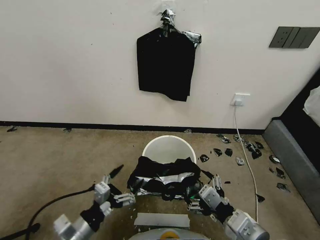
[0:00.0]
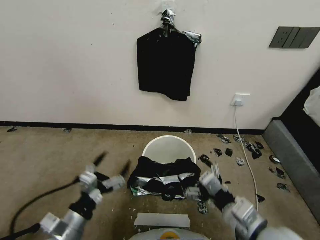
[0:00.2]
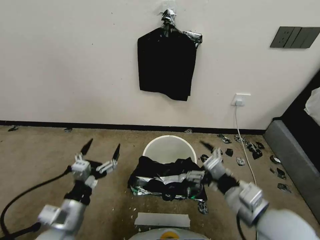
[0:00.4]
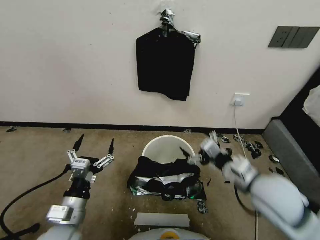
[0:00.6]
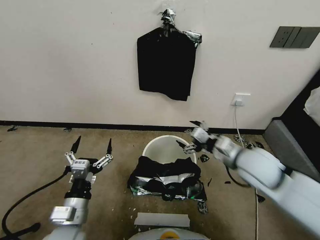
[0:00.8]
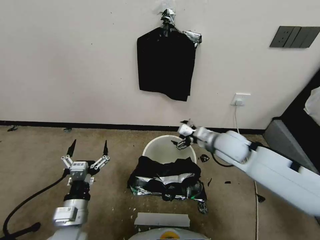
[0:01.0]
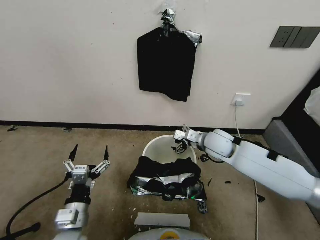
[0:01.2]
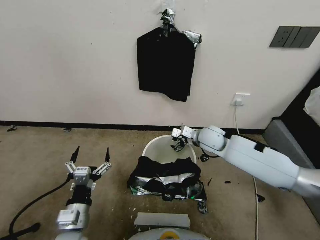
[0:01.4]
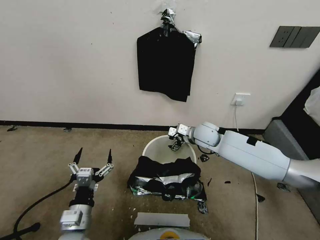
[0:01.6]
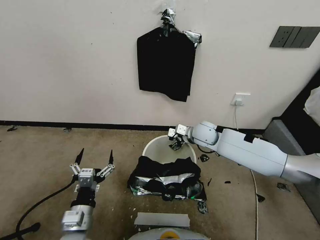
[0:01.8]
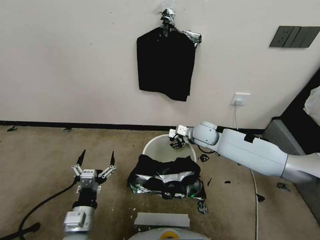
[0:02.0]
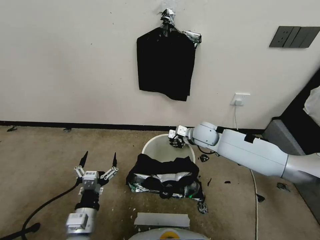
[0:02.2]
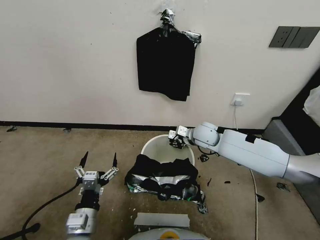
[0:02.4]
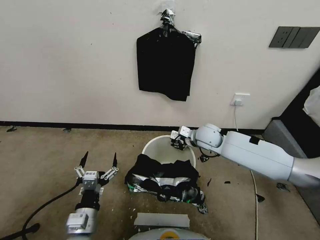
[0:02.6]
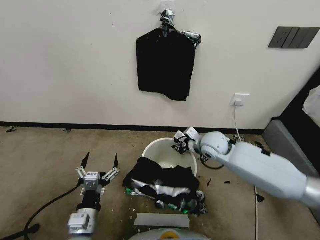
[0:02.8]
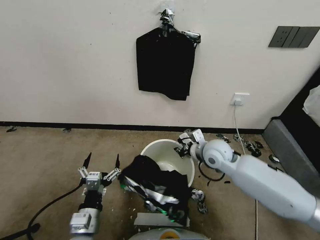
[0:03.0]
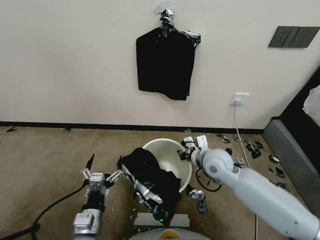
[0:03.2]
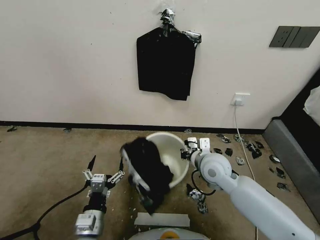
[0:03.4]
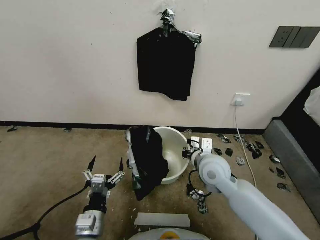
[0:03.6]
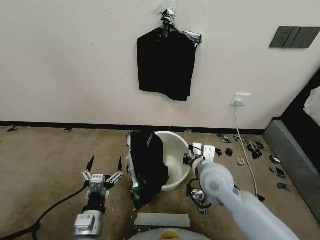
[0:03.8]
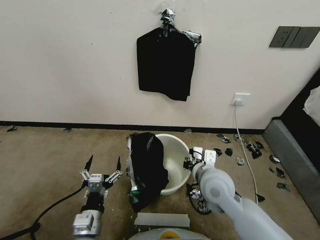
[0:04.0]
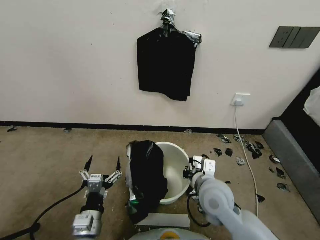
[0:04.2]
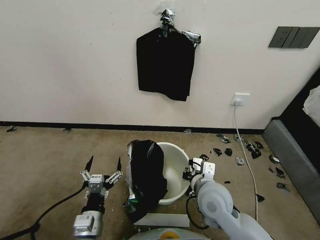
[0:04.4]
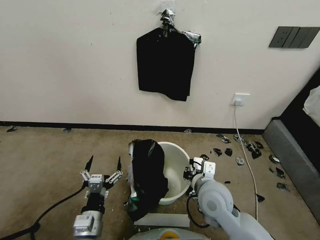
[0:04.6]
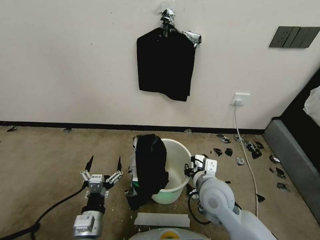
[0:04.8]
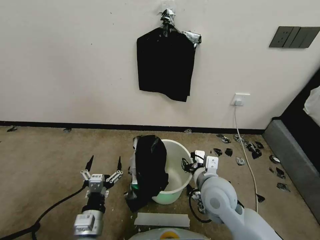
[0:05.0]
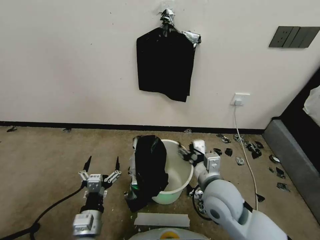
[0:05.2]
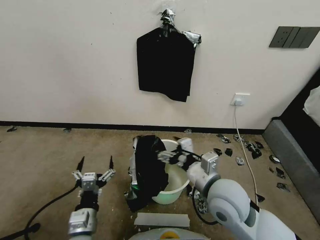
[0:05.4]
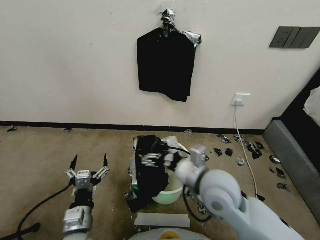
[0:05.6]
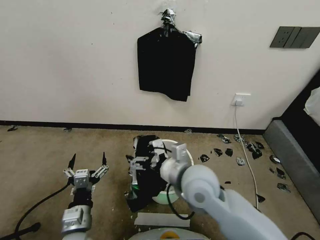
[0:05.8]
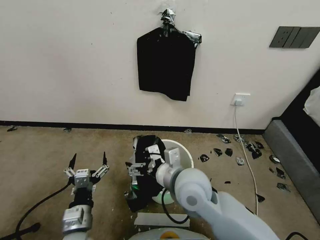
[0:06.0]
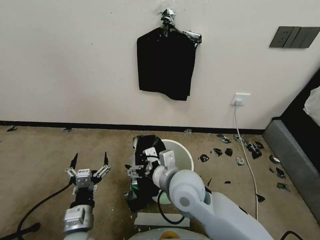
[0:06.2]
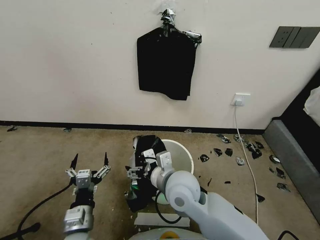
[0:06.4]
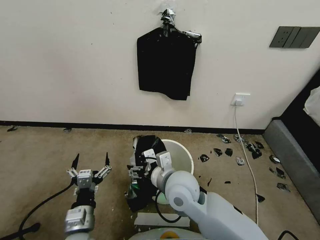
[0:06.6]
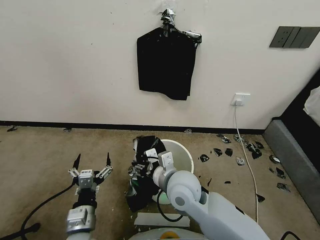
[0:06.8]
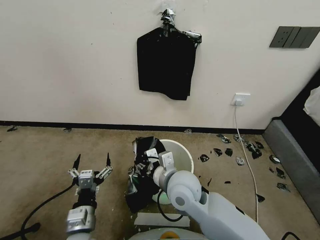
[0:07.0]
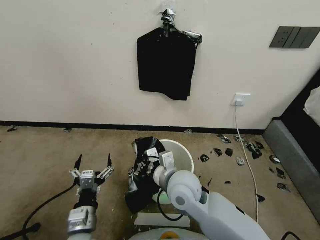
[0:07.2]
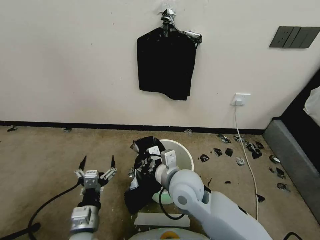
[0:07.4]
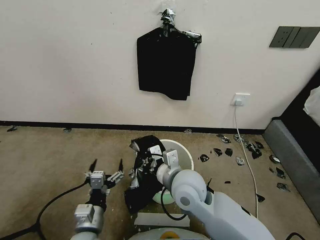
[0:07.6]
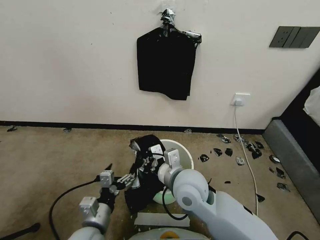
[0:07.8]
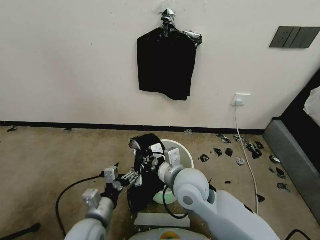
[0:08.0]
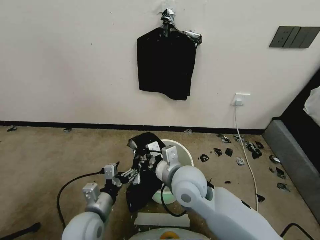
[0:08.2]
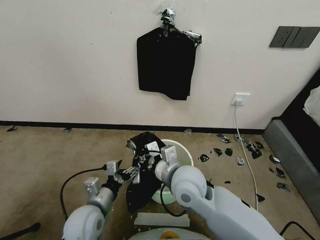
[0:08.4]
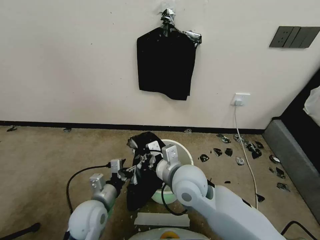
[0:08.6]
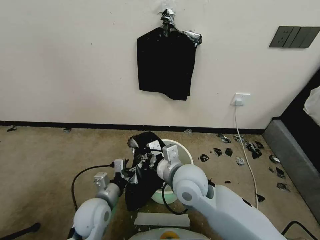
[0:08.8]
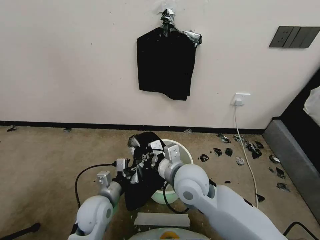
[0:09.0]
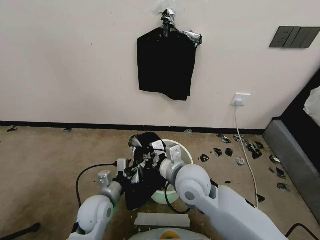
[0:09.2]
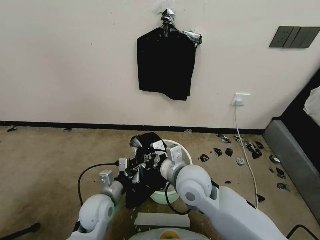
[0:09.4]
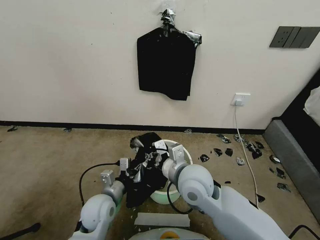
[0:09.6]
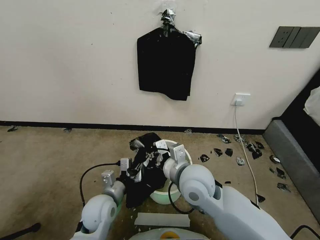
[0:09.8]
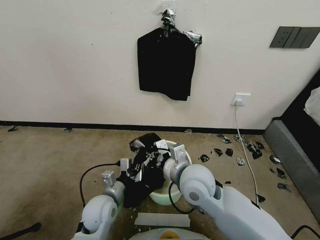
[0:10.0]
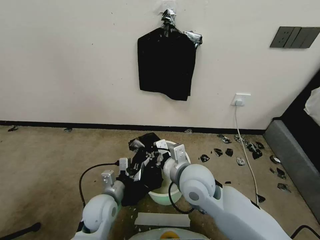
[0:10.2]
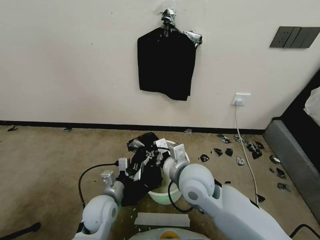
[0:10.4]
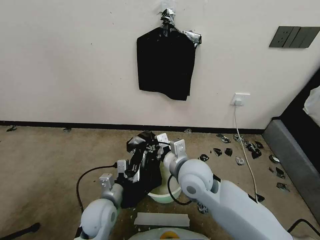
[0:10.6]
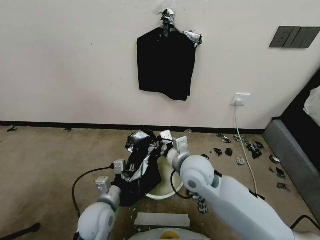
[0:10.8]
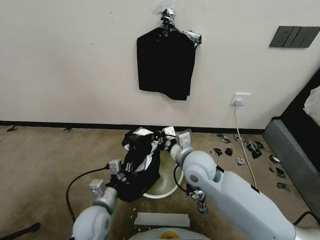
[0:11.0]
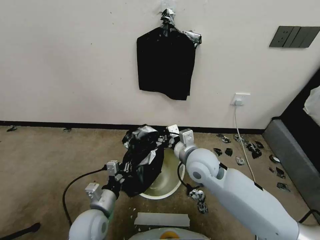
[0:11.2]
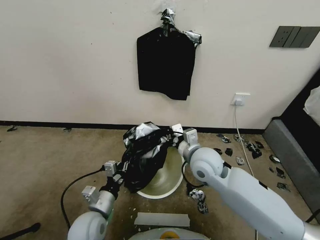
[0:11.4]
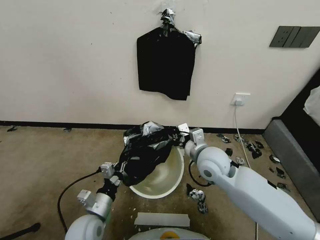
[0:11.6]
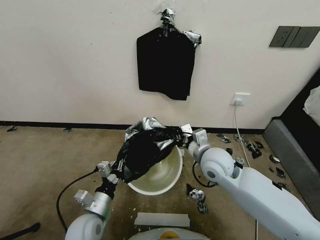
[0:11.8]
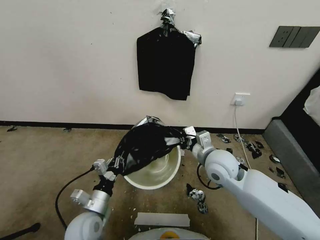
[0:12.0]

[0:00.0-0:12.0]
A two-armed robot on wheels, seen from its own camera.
Task of the whole recording: Place a trash bag onto the trash bin.
0:00.0 to 0:01.6: The right gripper is displaced forward by some 35 cm.
0:01.6 to 0:03.0: The right gripper goes some 10 cm backward, and closes its fingers.
0:03.0 to 0:04.4: The right gripper is displaced backward by some 15 cm.
0:04.4 to 0:06.0: The right gripper travels to the left and upward by some 10 cm, and opens.
0:06.0 to 0:07.6: The right gripper closes.
0:07.6 to 0:09.0: The left gripper heads forward, covering about 10 cm.
0:09.0 to 0:10.4: The left gripper closes its fingers.
0:10.4 to 0:12.0: The left gripper ends up approximately 5 cm from where it was, while the right gripper moves to the right and forward, about 10 cm.

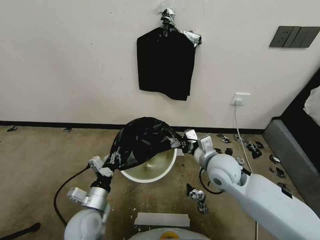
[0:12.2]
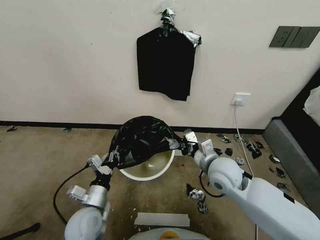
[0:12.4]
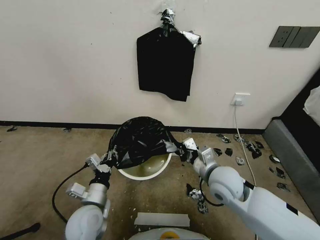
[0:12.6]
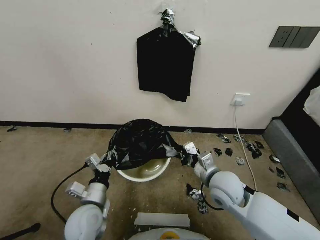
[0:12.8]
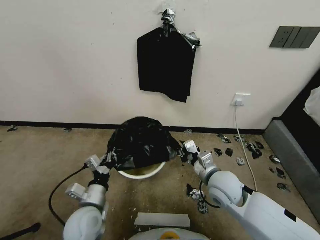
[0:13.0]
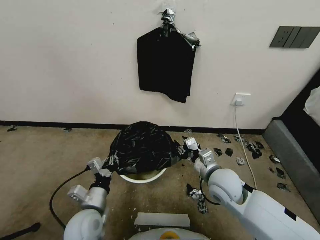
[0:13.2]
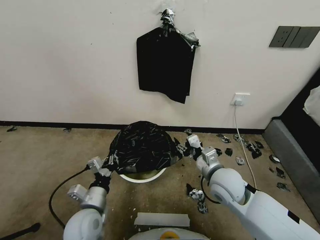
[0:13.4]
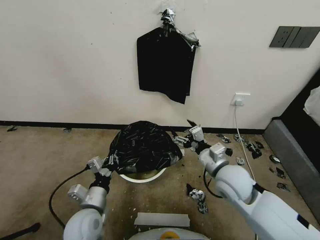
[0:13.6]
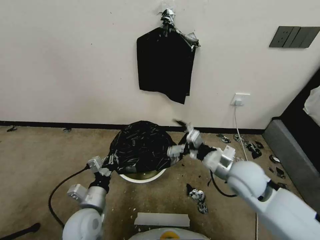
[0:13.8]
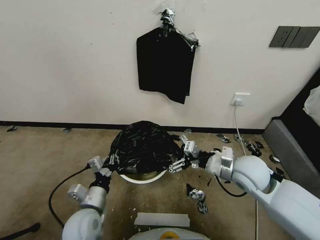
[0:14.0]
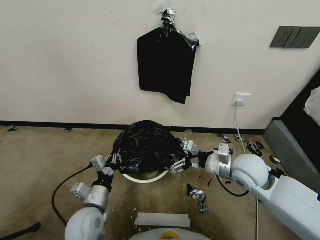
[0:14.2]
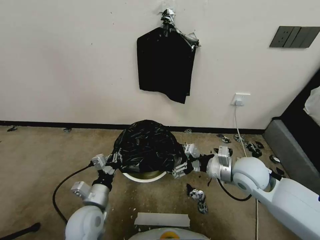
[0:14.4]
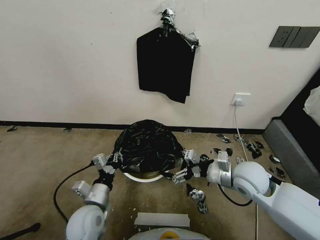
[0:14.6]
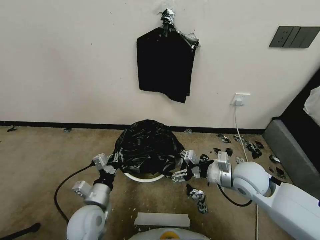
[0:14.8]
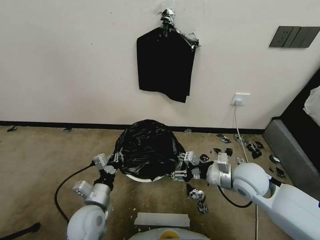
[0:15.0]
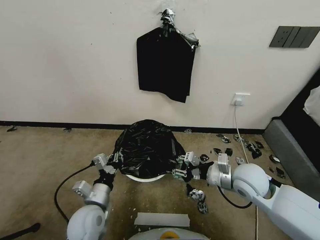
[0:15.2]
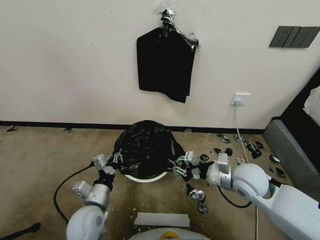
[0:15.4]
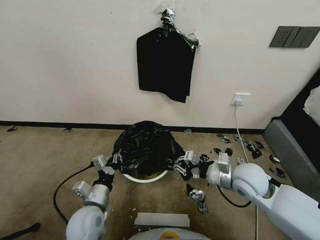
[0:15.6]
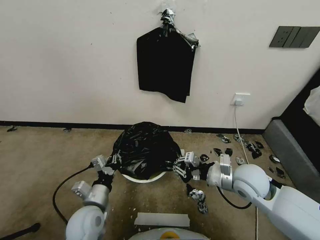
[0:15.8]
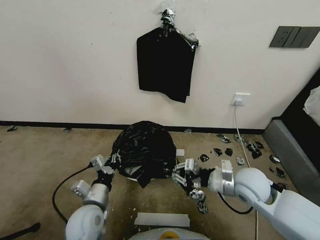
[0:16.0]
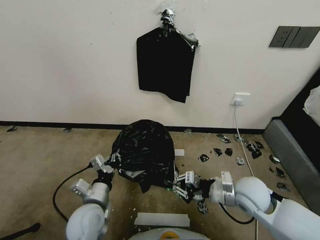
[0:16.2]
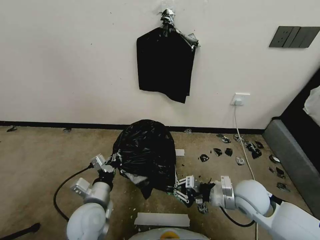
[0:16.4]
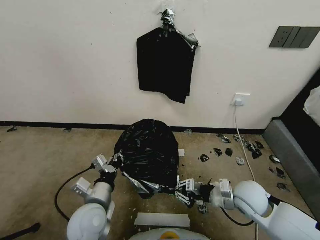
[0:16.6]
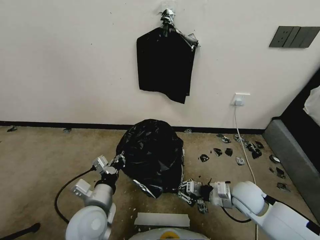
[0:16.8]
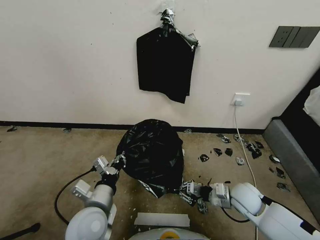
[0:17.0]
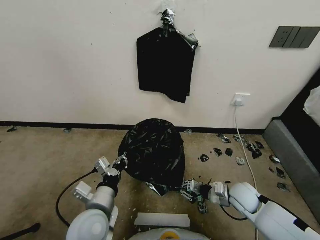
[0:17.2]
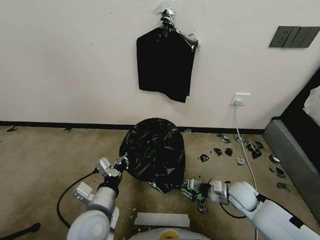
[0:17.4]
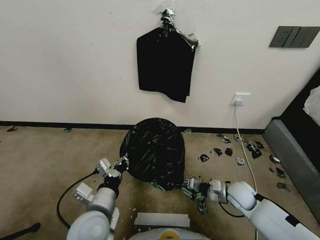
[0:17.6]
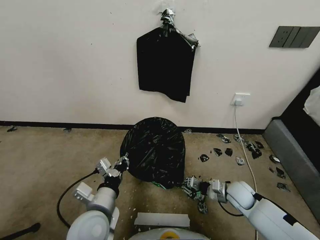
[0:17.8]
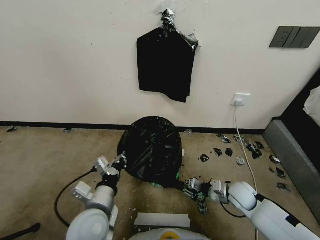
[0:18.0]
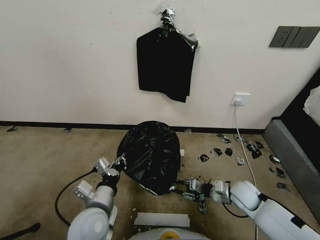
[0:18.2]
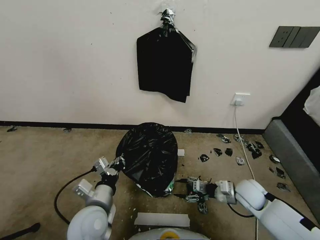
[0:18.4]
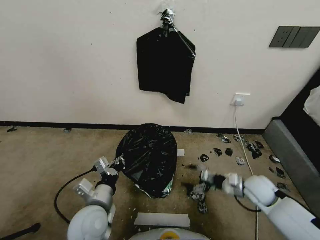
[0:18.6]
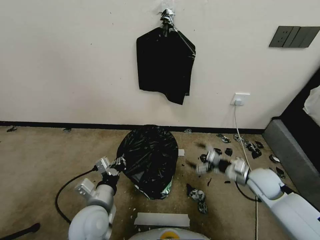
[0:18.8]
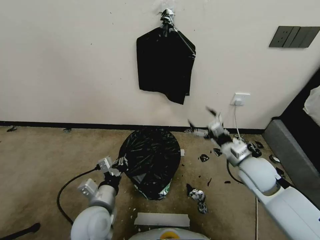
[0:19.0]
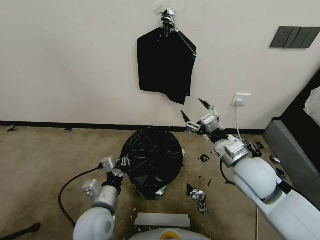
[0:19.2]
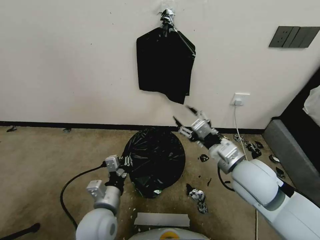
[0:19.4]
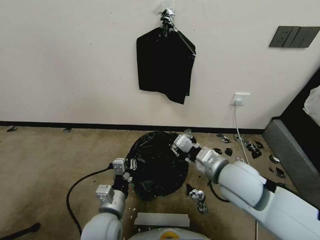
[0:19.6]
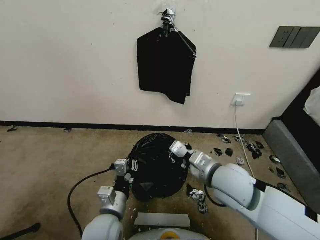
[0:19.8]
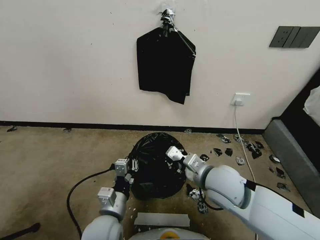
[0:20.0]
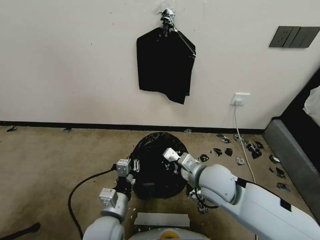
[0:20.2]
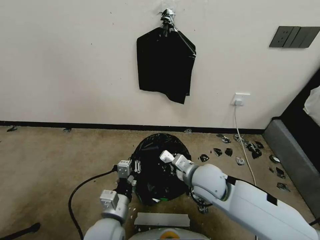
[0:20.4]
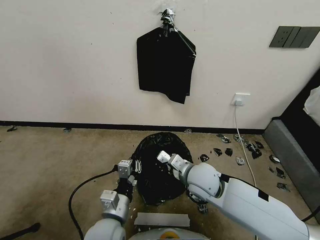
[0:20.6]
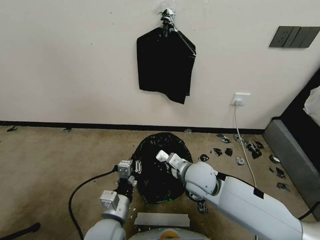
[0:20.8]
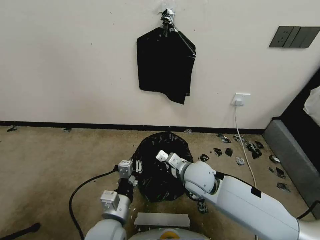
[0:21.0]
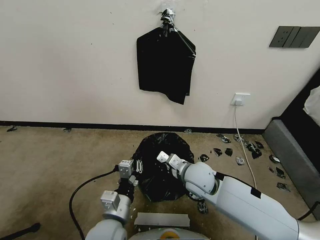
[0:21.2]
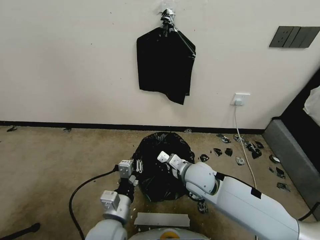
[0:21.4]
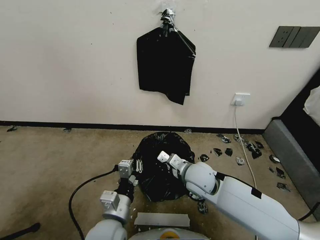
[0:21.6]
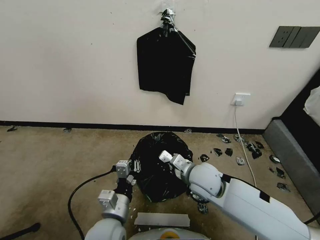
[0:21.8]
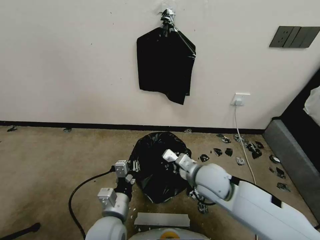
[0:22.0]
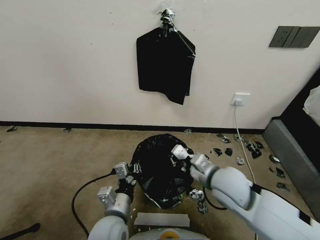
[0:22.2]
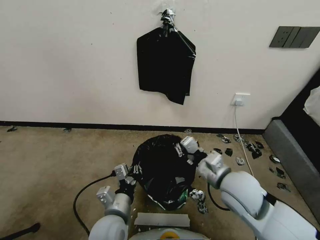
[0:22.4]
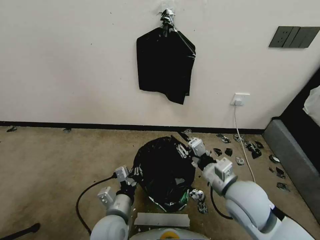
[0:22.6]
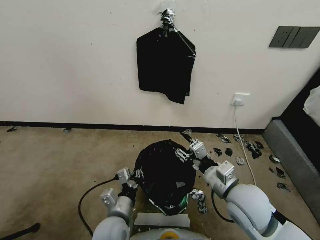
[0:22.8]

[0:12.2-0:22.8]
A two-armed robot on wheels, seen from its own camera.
Task of the whole recording: Place a trash bag onto the trash bin.
0:12.2 to 0:13.8: The right gripper ends up approximately 5 cm from where it was, and opens up.
0:13.8 to 0:15.2: The right gripper closes its fingers.
0:15.2 to 0:16.8: The left gripper ends up some 5 cm from where it was. Meanwhile the right gripper goes about 10 cm downward, and closes its fingers.
0:16.8 to 0:18.2: The right gripper is displaced downward by about 5 cm.
0:18.2 to 0:19.8: The right gripper moves upward and to the left, approximately 25 cm, and opens and closes again.
0:19.8 to 0:21.2: The right gripper is displaced downward, to the left and forward by roughly 10 cm.
0:21.2 to 0:22.8: The right gripper travels backward, to the right and upward by some 15 cm, and opens its fingers.
